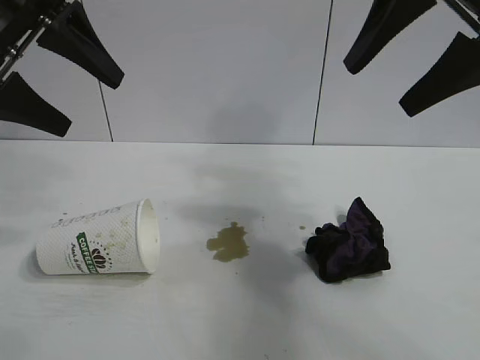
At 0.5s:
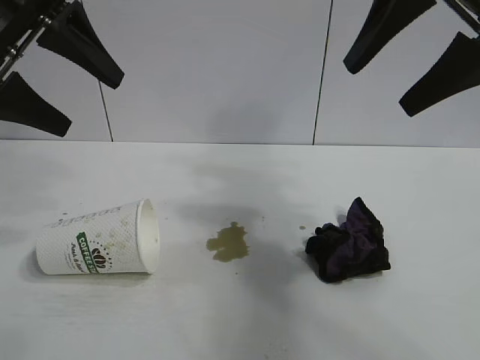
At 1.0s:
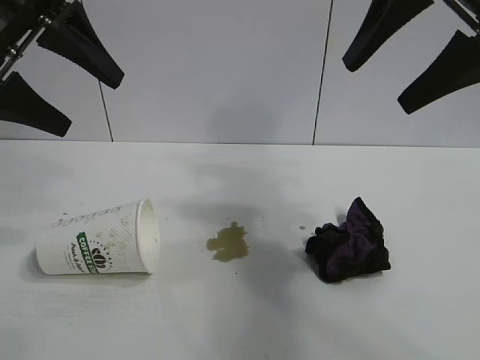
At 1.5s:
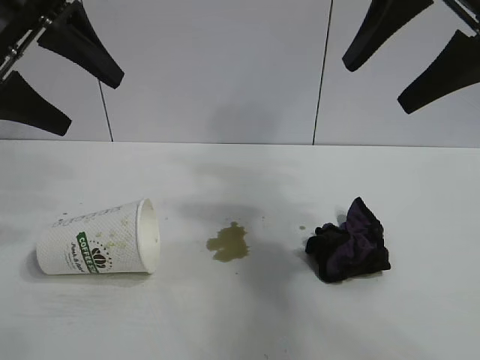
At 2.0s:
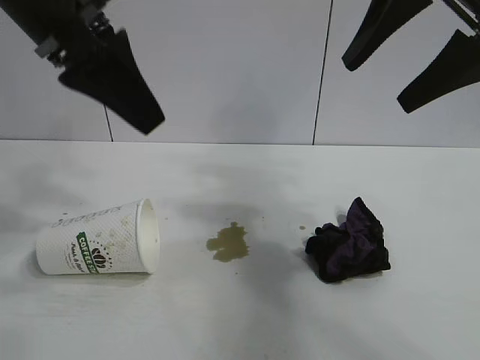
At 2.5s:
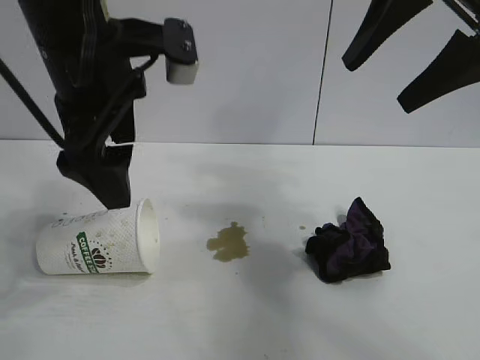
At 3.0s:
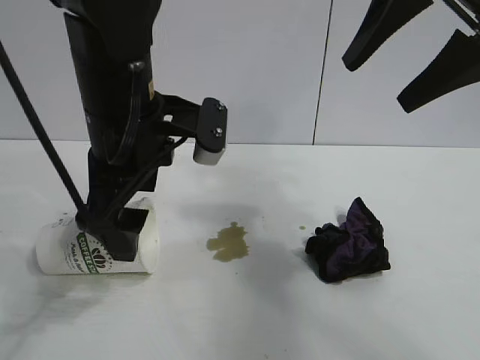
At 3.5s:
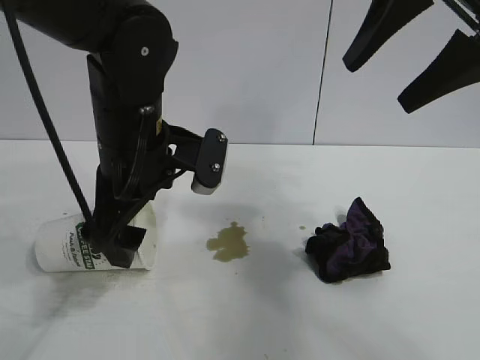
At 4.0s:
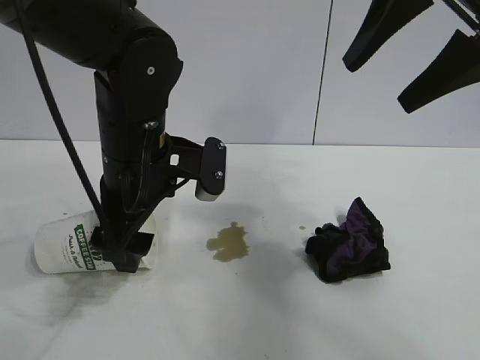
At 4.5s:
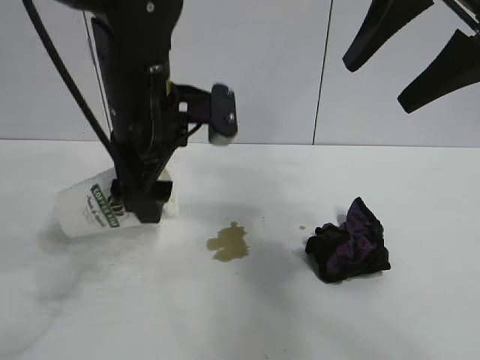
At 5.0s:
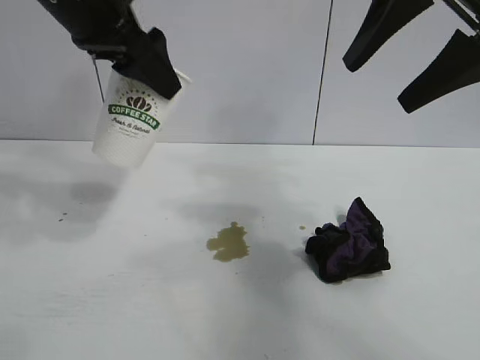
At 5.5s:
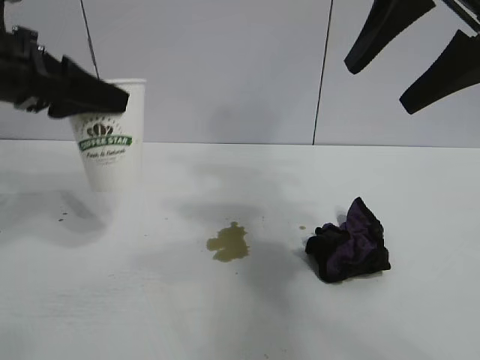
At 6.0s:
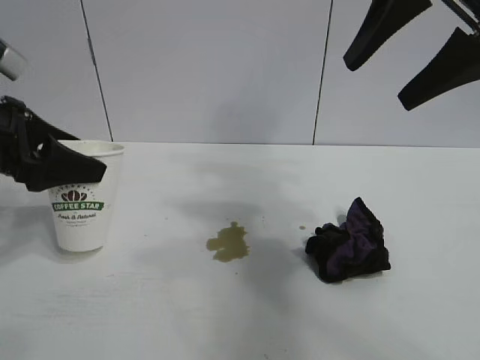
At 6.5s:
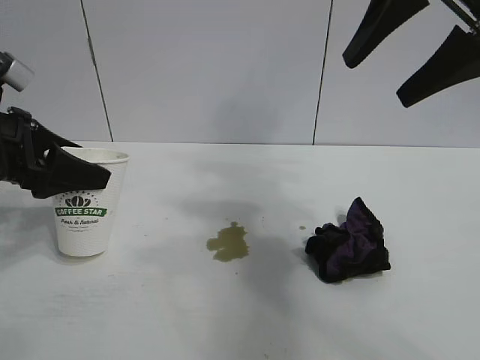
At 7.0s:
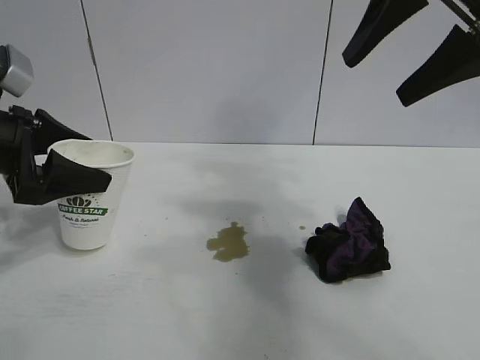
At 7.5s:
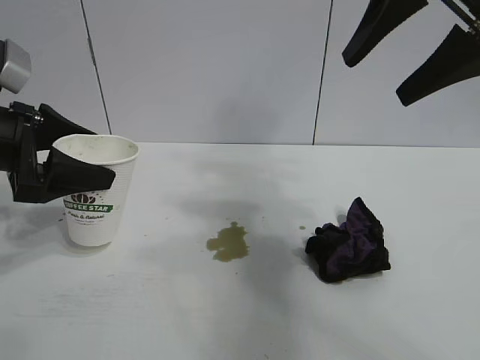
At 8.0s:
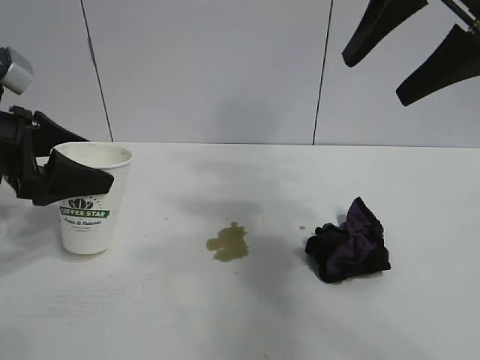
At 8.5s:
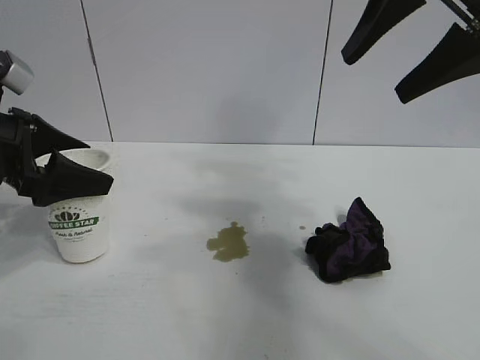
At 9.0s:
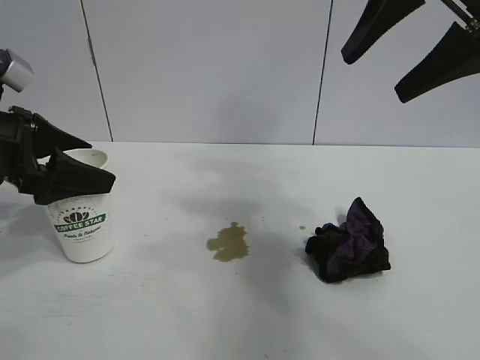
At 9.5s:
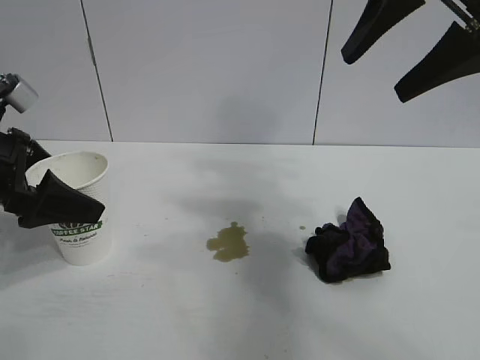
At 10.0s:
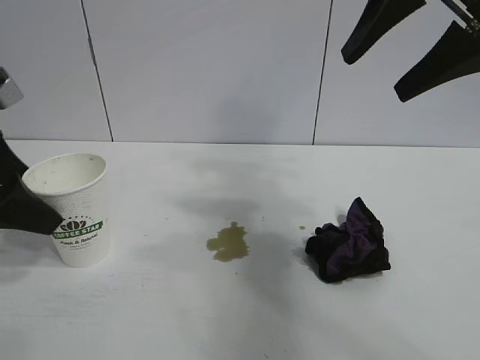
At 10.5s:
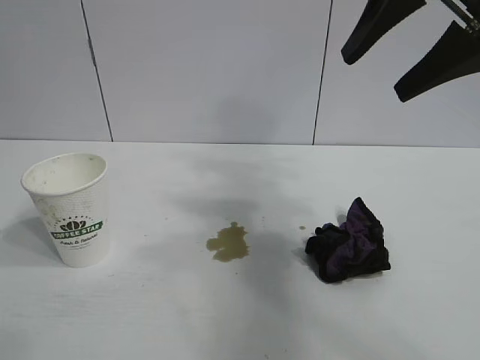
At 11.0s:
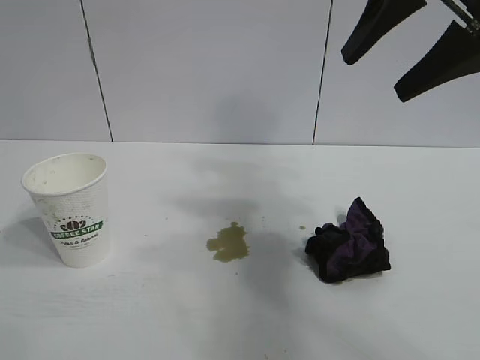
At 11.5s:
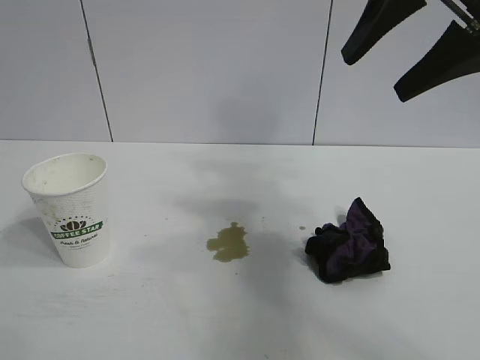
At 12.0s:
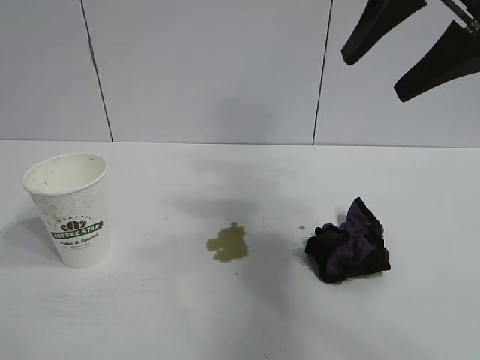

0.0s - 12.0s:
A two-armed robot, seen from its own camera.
Task of the whole recording: the left gripper pick up the fallen cup and place it upright, the right gripper grasp the black rag and wipe the stain on the table, the right gripper put the black rag back in its original position.
Step, 1.0s - 4.0s: Grasp the paper cup with left gripper.
Step, 4.5s - 9.0s: Stand the paper cup upright with left gripper.

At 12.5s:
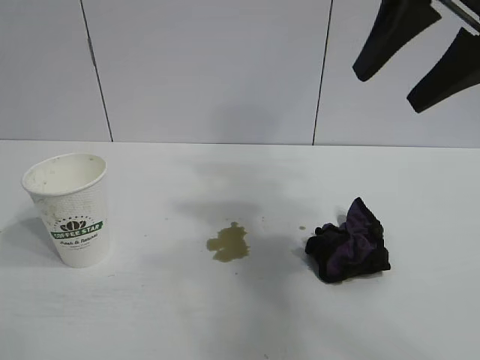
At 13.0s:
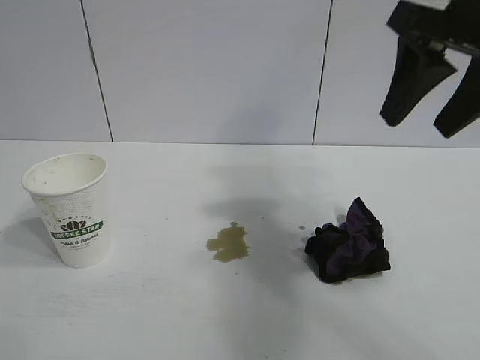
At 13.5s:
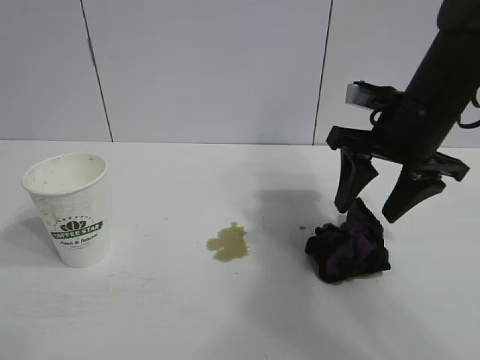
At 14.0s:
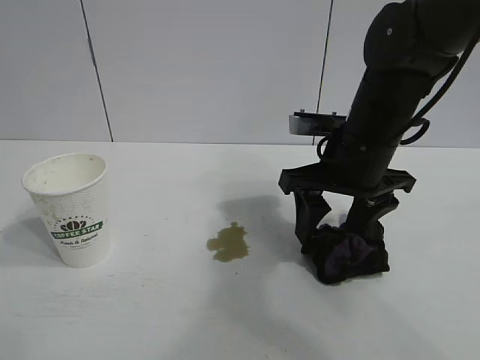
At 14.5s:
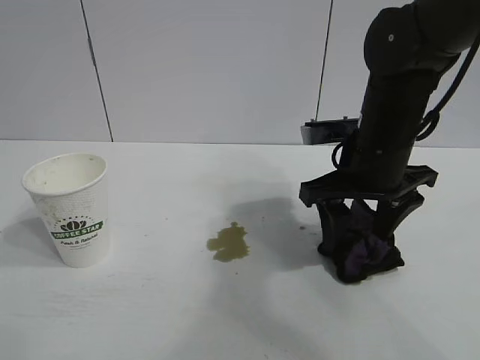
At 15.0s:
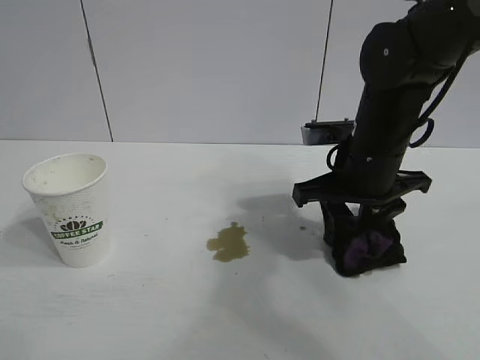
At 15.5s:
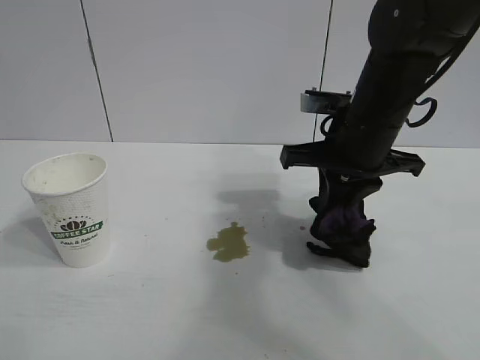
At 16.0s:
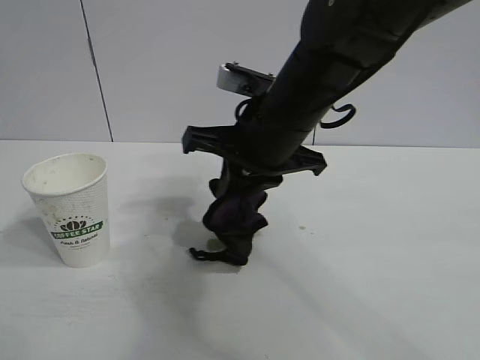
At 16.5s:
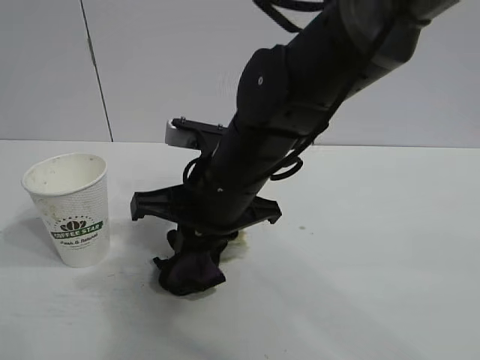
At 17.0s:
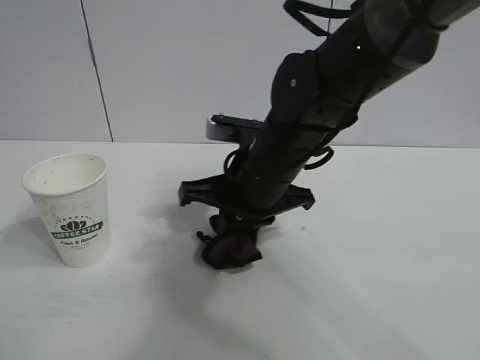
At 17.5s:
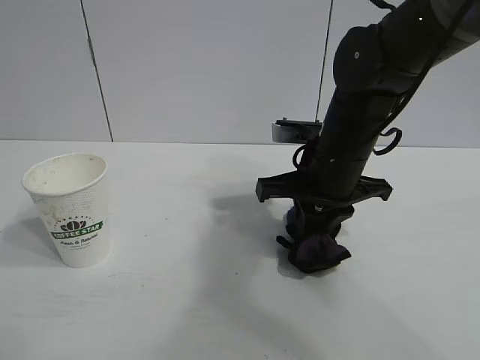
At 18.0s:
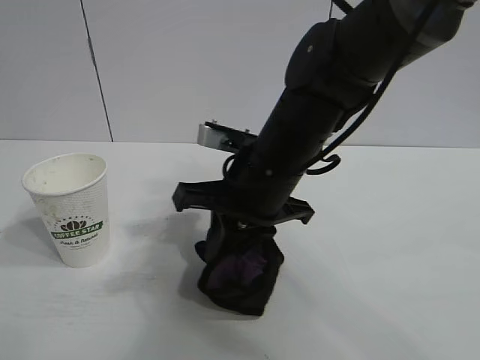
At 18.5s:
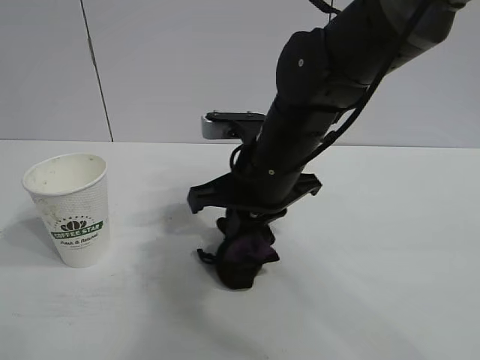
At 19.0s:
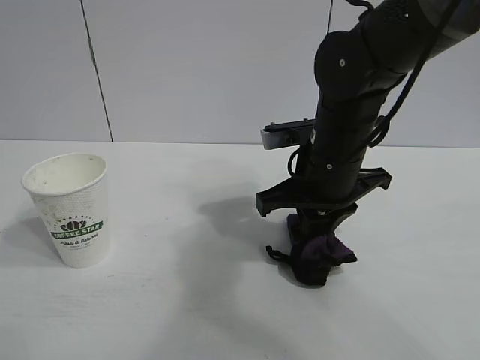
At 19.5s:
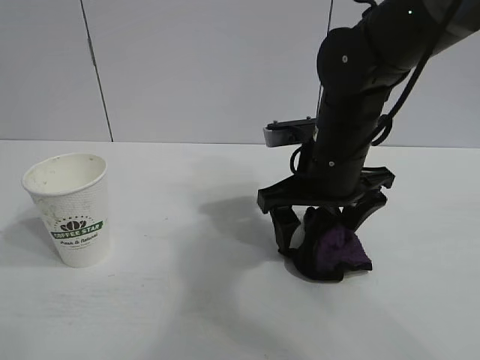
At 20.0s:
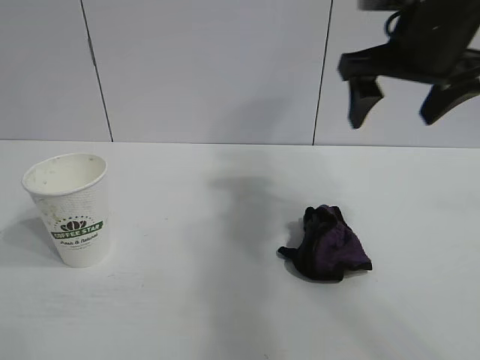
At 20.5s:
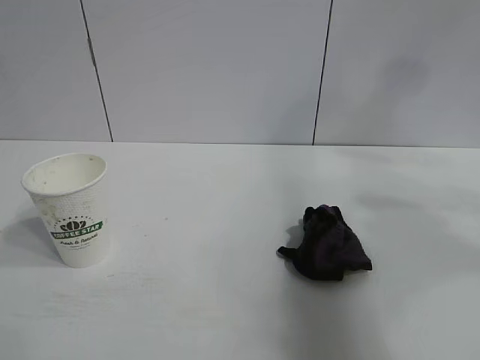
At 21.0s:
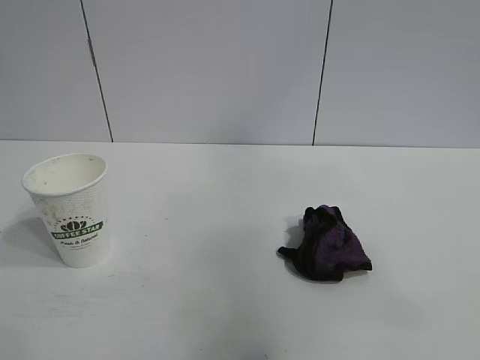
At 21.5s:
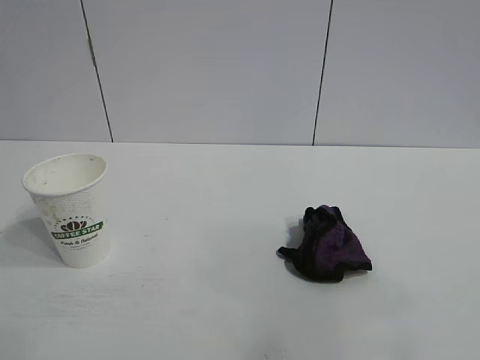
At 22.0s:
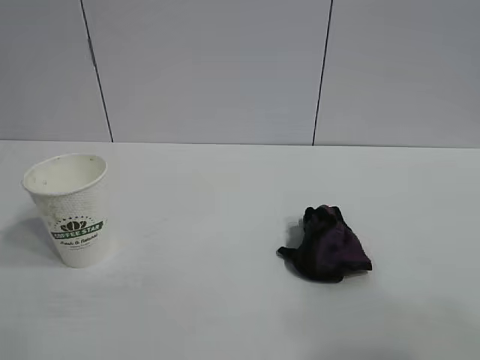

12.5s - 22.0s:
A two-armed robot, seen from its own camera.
Task of the whole recording: the left gripper pick up the fallen cup and place it upright, the right gripper grasp the black rag and wipe the stain on the table, the right gripper put the black rag back in its original position.
Step, 12.5s - 15.0s: Grasp the rag with right gripper.
Step, 15.5s - 18.5s: Wipe the stains off the table with the rag with right gripper.
